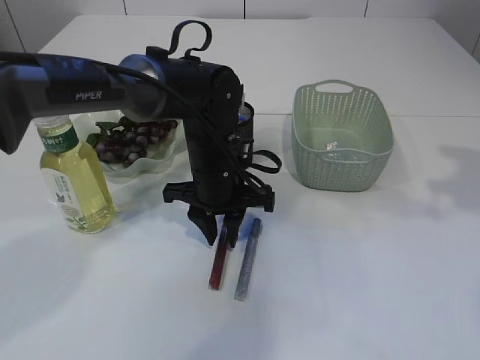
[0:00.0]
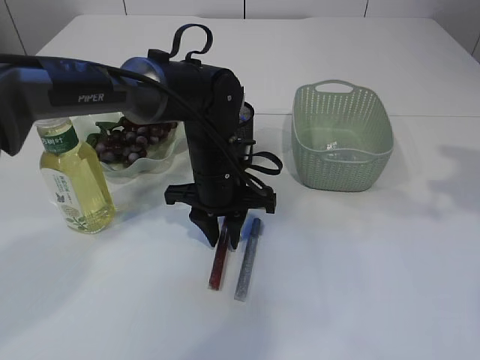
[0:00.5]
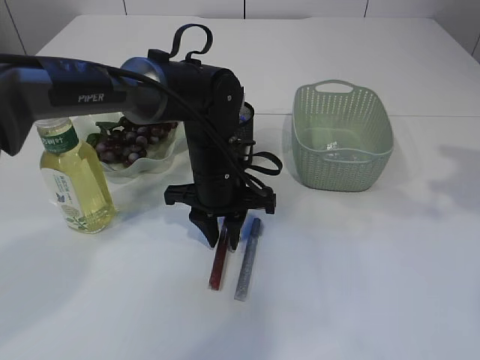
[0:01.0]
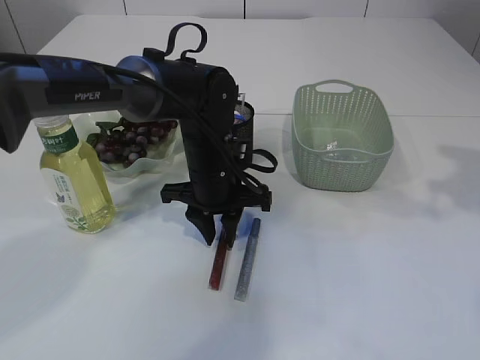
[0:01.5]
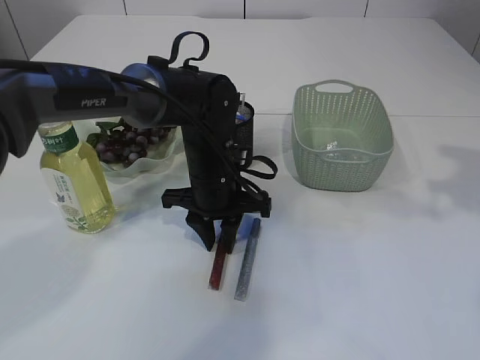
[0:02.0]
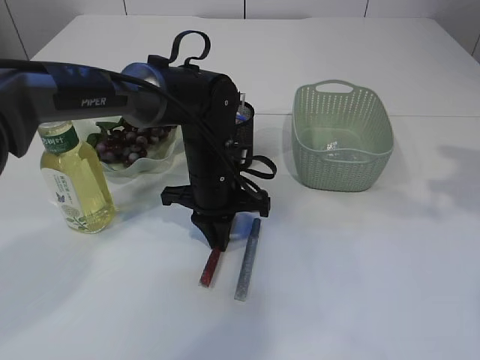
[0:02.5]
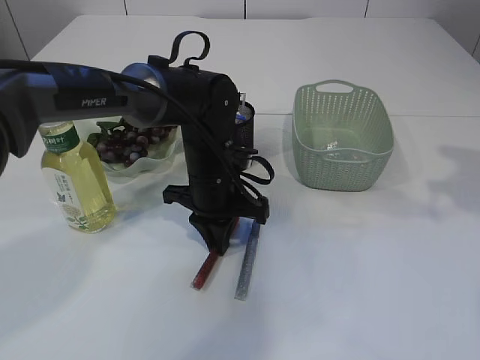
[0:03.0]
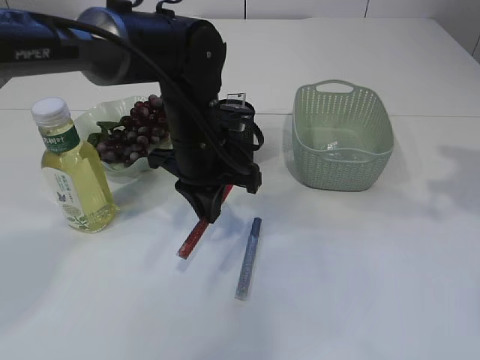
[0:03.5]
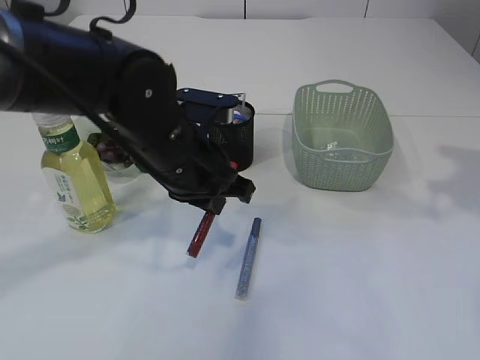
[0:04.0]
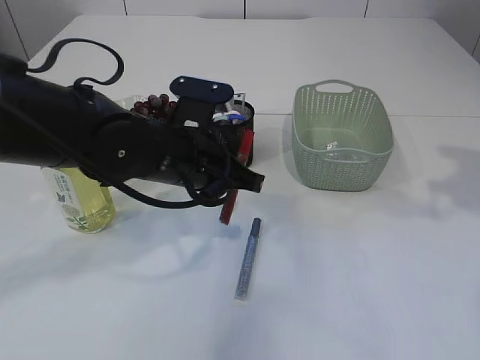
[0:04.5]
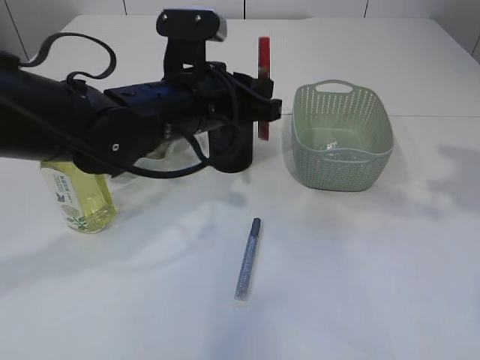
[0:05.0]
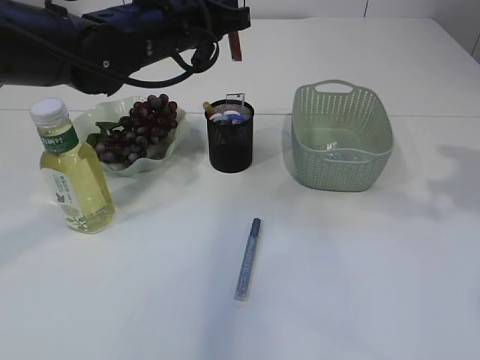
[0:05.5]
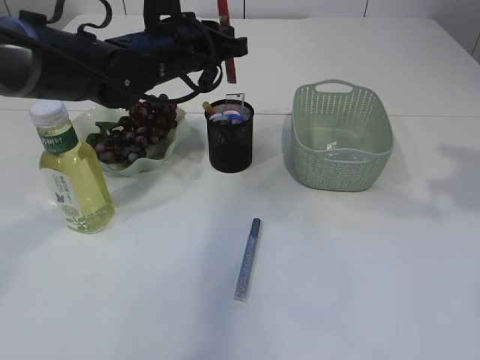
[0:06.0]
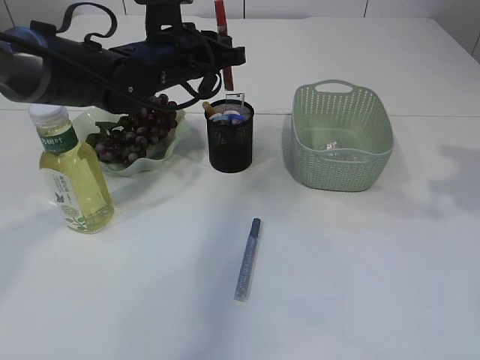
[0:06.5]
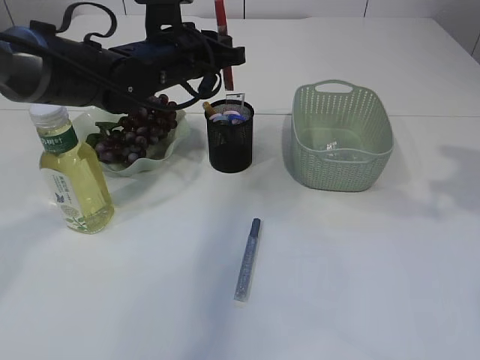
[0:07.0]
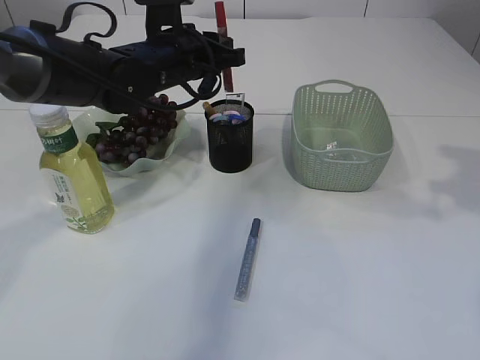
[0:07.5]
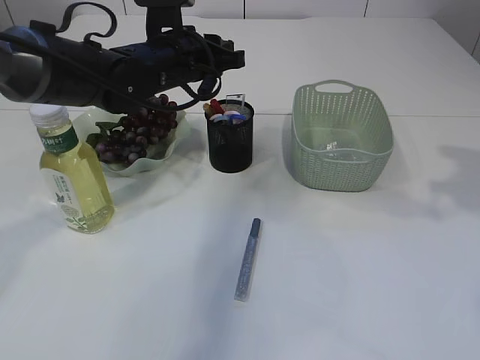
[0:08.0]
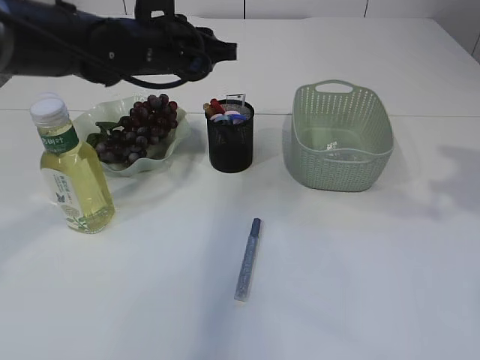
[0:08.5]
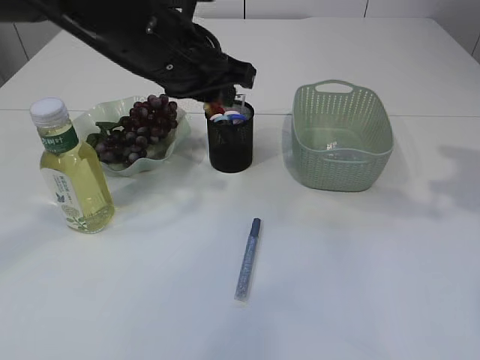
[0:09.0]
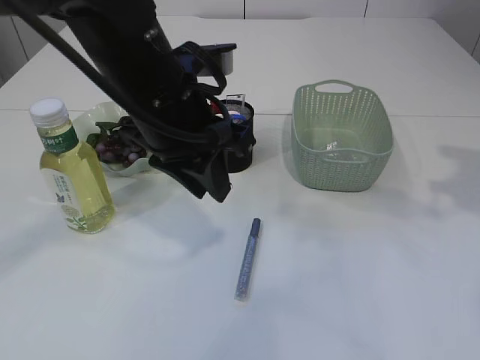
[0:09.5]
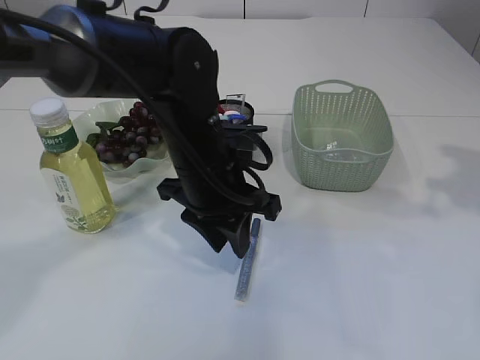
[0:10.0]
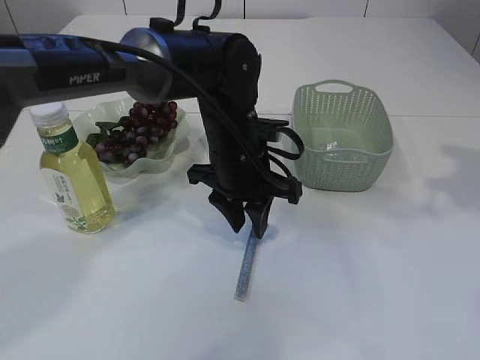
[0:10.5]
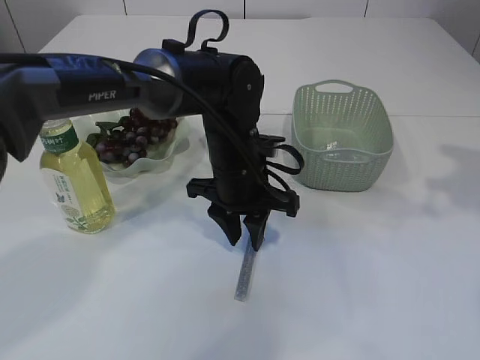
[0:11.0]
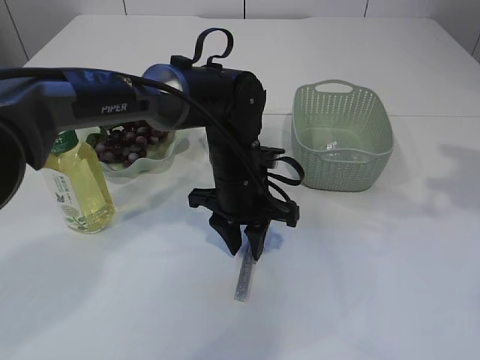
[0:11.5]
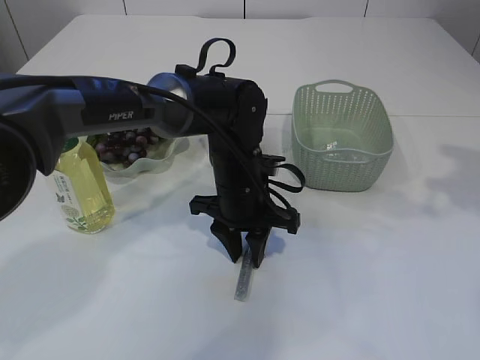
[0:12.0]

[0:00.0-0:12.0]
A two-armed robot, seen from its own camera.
Step, 0:00.0 to 0:03.5: pick up the red glue.
Step, 0:04.0 to 0:08.5: place the red glue into the pen holder.
0:00.0 to 0:02.0: Both grippers stay about where they are.
0:02.0 to 0:04.0: The left gripper moves upward and backward, approximately 10 cm, and closes up.
0:04.0 to 0:06.0: The left gripper travels forward by some 10 cm.
0:06.0 to 0:08.0: The grippers stay close to where they were, moving slightly.
0:08.0 to 0:10.0: The left gripper is displaced backward and to the right by roughly 15 cm.
0:10.0 to 0:12.0: The left gripper goes approximately 5 cm downward.

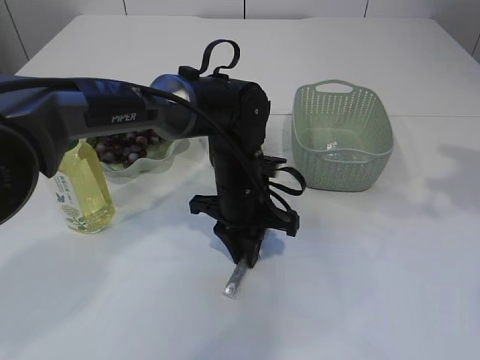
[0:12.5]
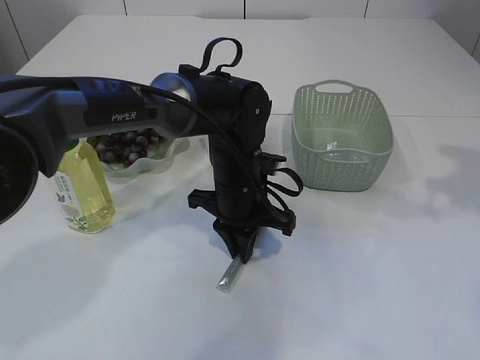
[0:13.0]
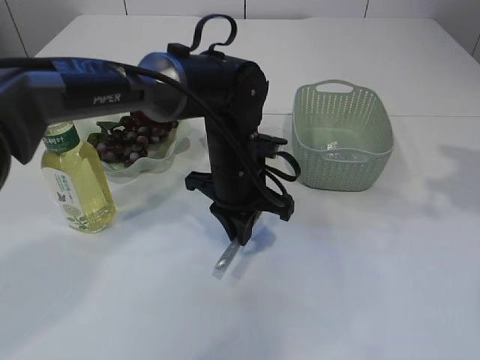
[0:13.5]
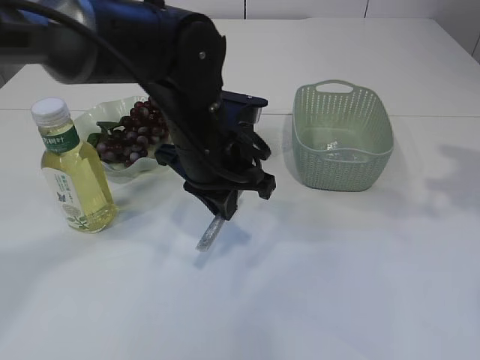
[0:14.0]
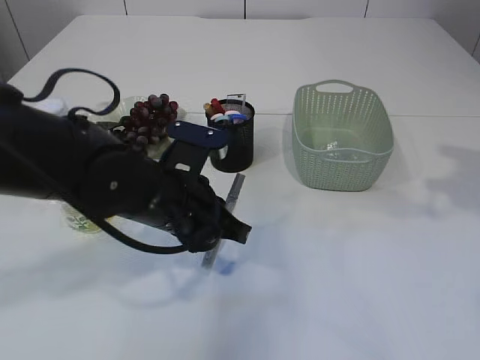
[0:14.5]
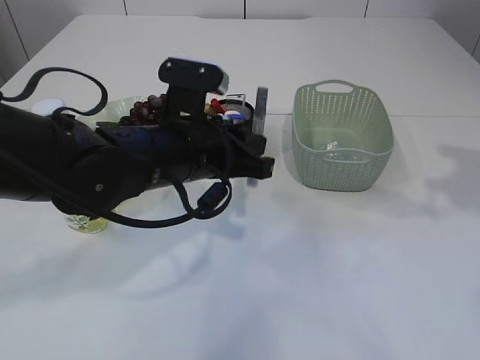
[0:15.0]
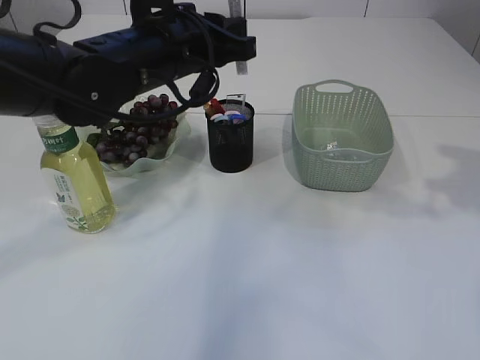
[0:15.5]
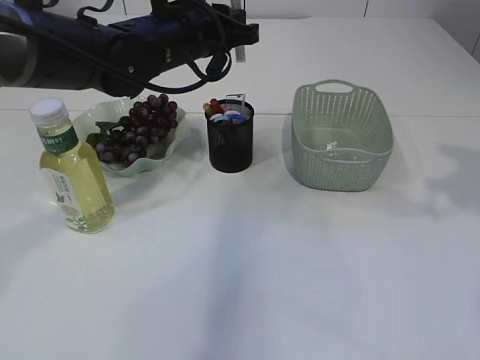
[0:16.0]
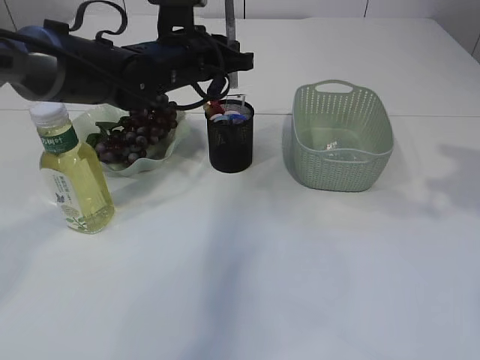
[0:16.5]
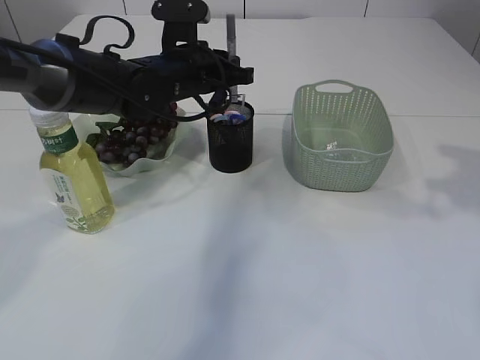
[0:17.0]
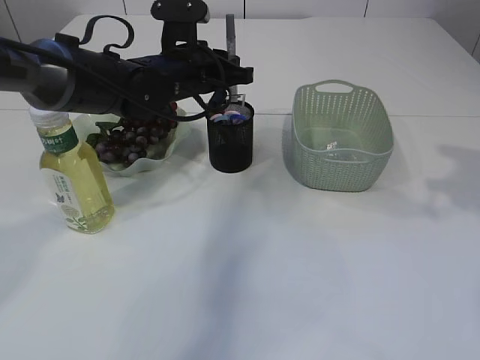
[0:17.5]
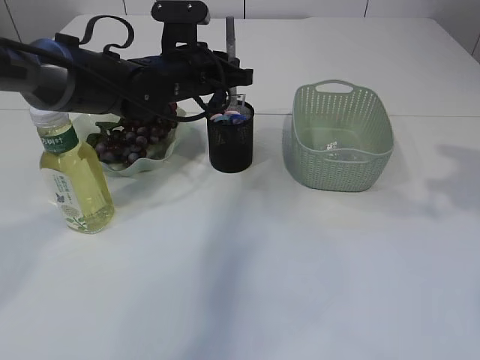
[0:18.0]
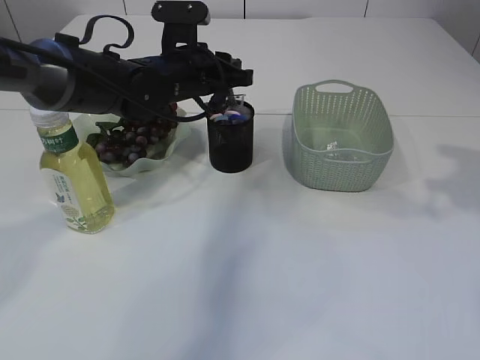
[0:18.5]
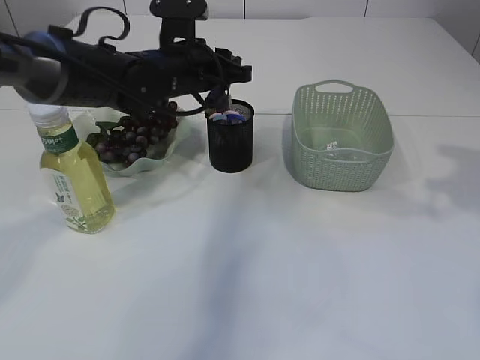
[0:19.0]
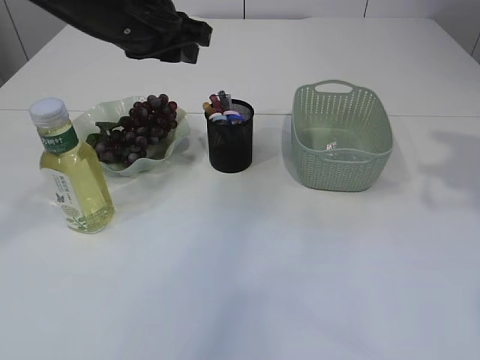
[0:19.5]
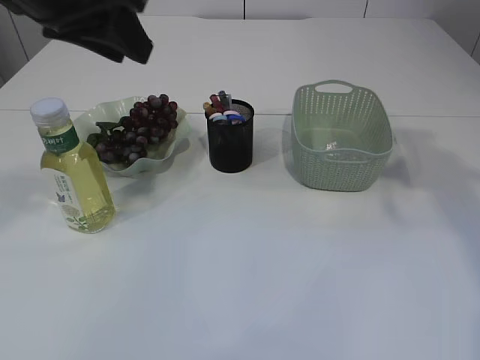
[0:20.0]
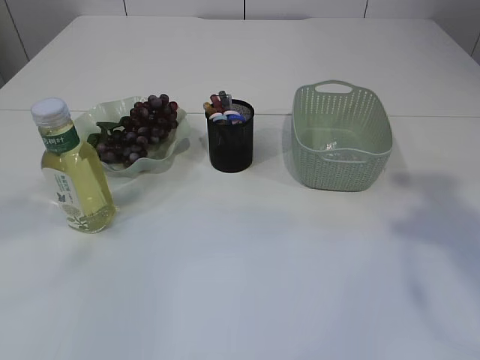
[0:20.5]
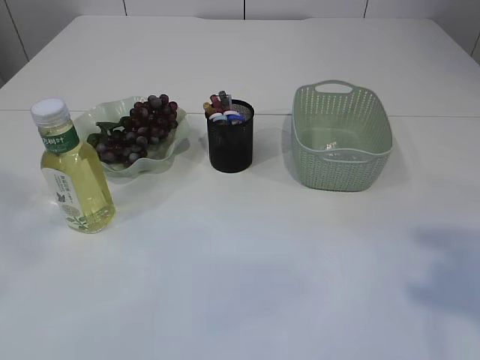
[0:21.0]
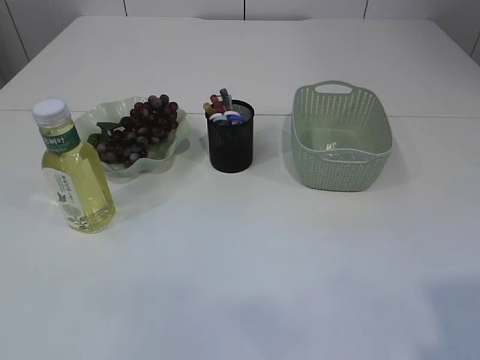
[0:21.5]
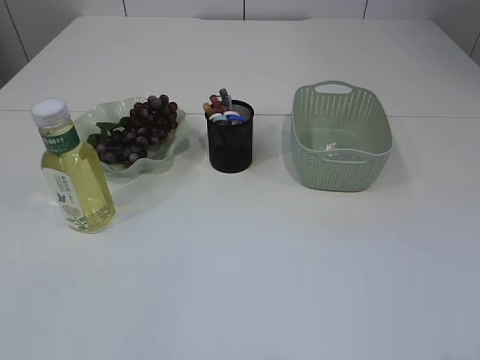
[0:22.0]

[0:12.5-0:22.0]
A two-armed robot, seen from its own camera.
Step, 0:14.0 to 0:19.0: place the silver glue into the pen holder.
0:12.5 to 0:14.5: The left gripper shifts some 10 cm backward and to the left.
0:14.5 to 0:16.5: The left gripper goes about 15 cm forward and upward.
0:16.5 to 0:18.0: The grippers make only small movements.
0:18.0 to 0:20.0: The left gripper is displaced upward and backward by about 25 cm. The right gripper is displaced upward and to the left by some 10 cm.
0:20.0 to 0:22.0: The left gripper goes approximately 35 cm backward and to the left.

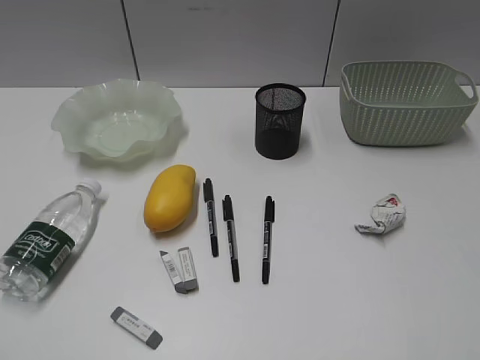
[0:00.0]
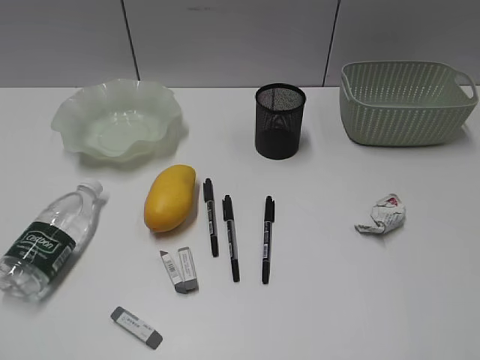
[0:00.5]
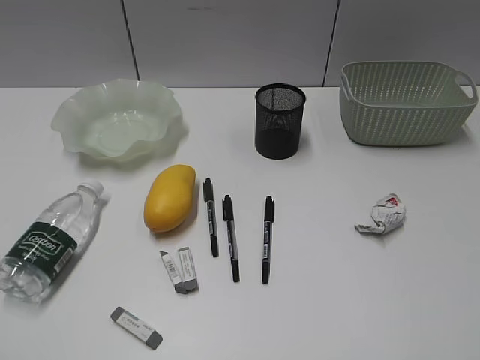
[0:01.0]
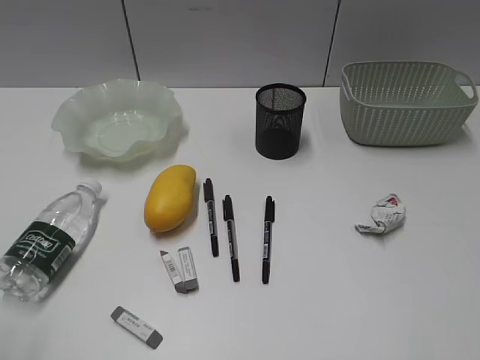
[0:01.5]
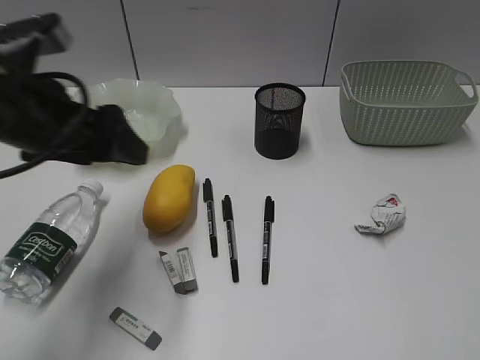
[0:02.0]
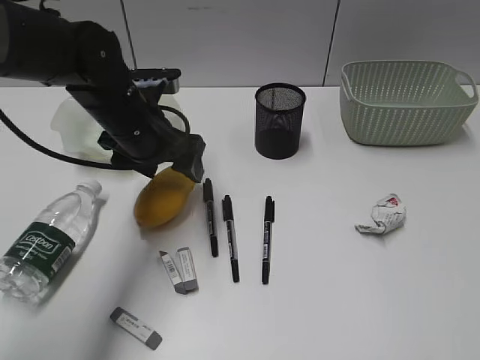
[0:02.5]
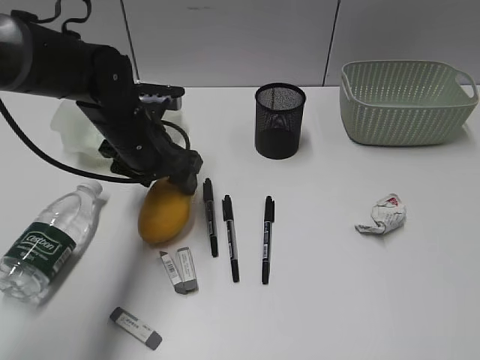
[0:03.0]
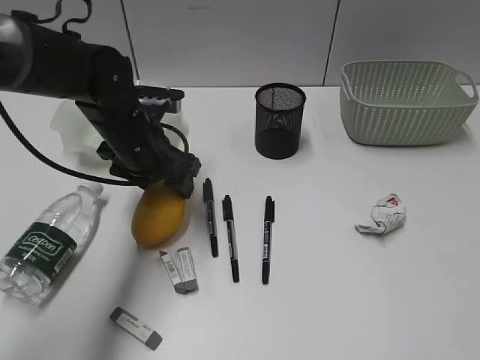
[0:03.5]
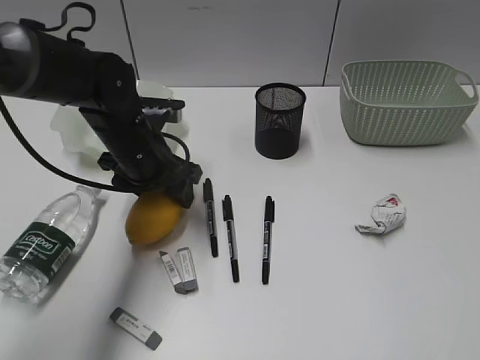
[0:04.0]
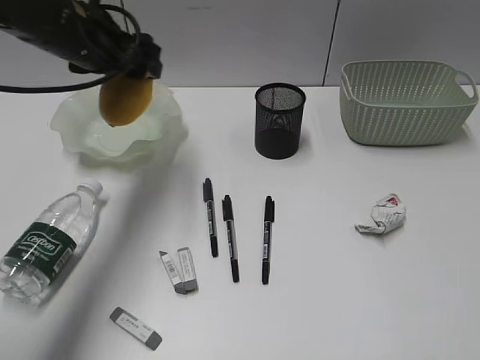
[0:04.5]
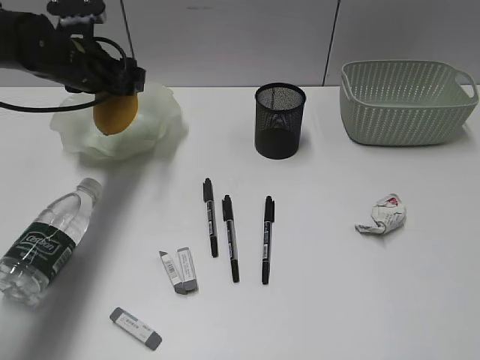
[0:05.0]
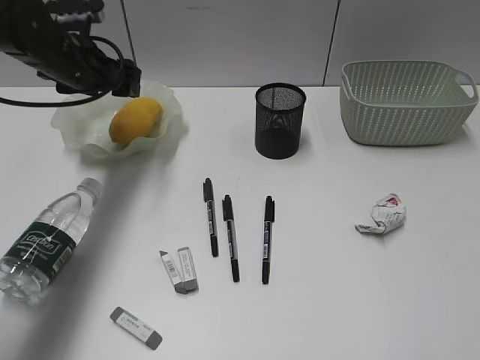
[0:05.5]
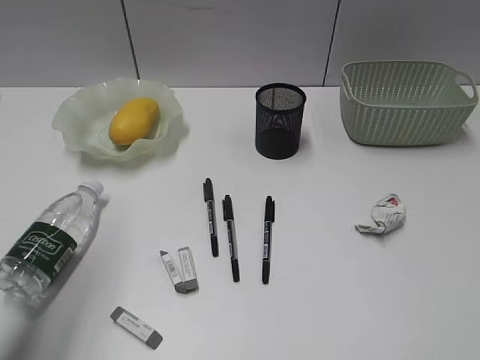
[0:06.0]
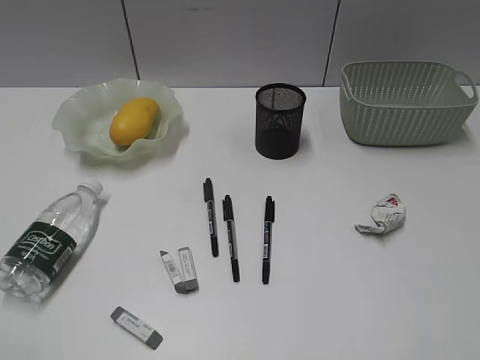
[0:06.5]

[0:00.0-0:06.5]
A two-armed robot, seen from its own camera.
Step, 0:00.0 to 0:04.0: Grasp the mango with left gripper.
Step, 0:04.5 to 0:05.5: Place the mango in the plate with left gripper.
0:02.0 to 0:04.5: The left gripper is displaced forward by approximately 15 cm.
0:04.5 to 0:06.5: The left gripper goes some 35 cm backward, and closes up.
